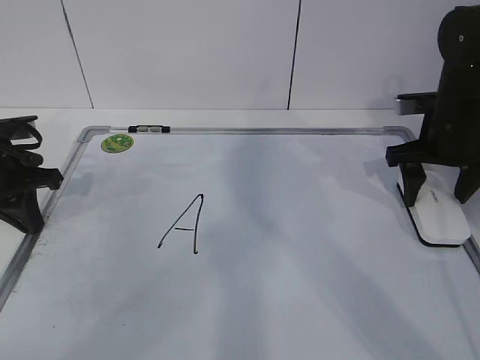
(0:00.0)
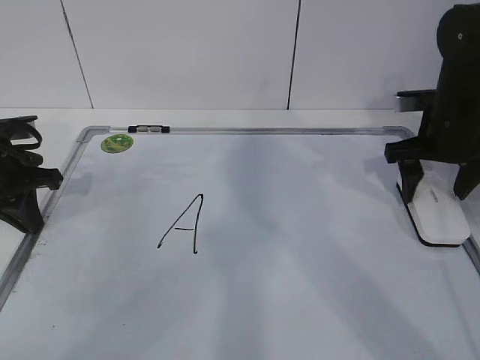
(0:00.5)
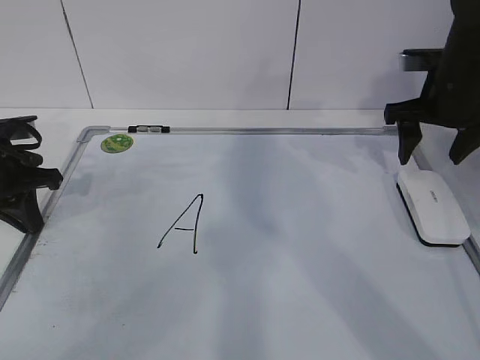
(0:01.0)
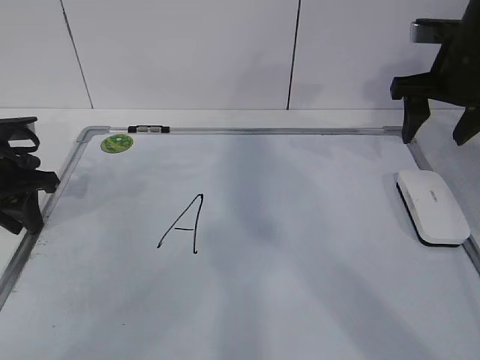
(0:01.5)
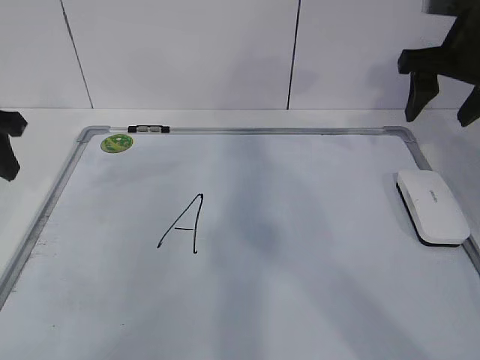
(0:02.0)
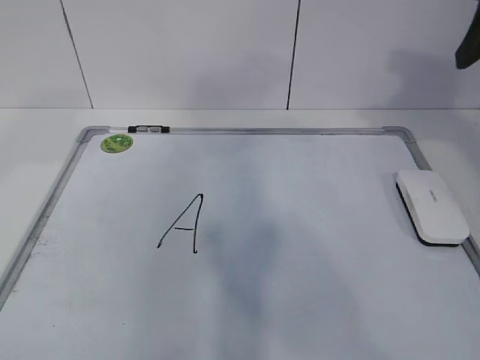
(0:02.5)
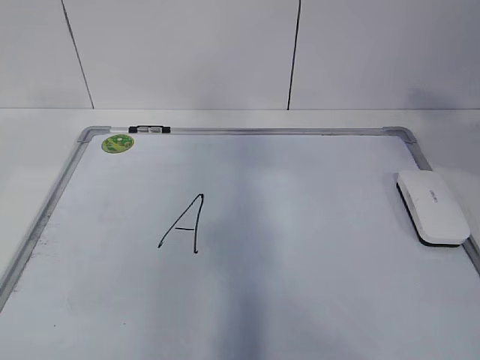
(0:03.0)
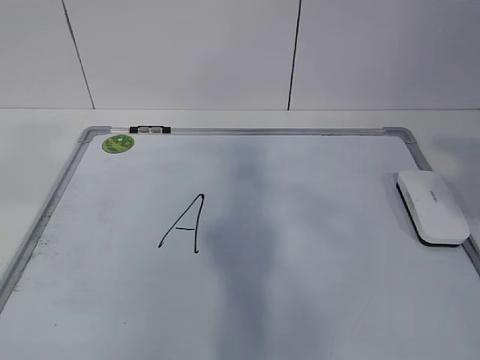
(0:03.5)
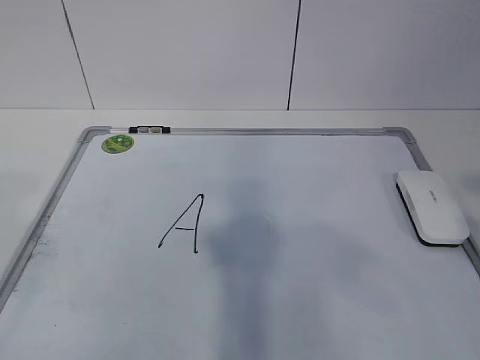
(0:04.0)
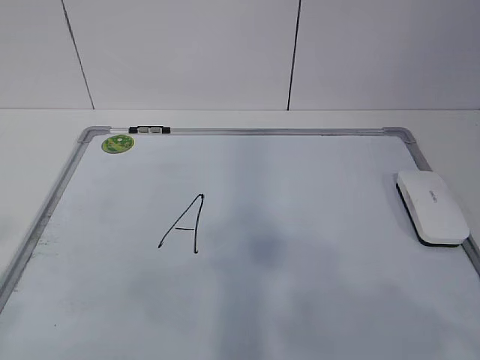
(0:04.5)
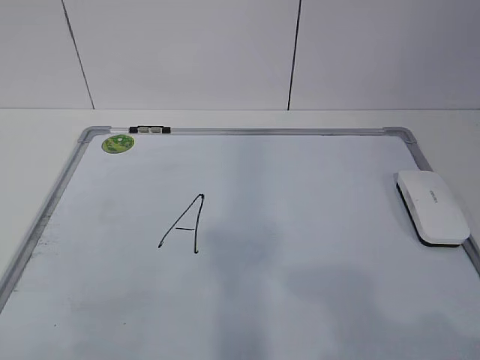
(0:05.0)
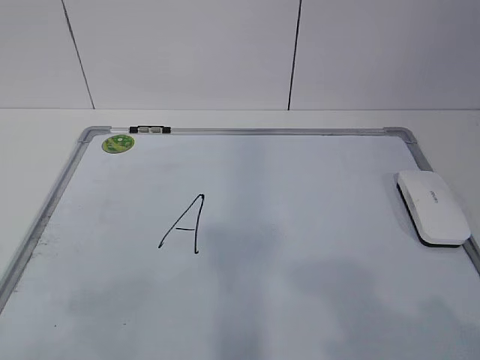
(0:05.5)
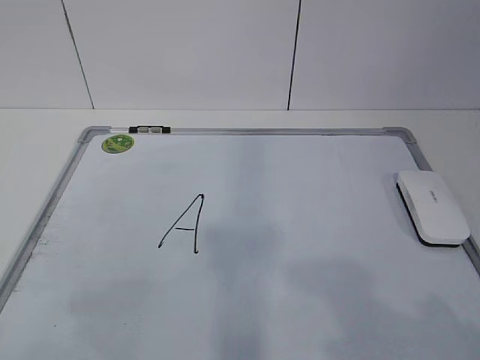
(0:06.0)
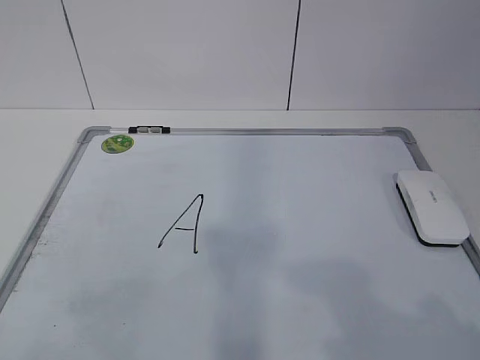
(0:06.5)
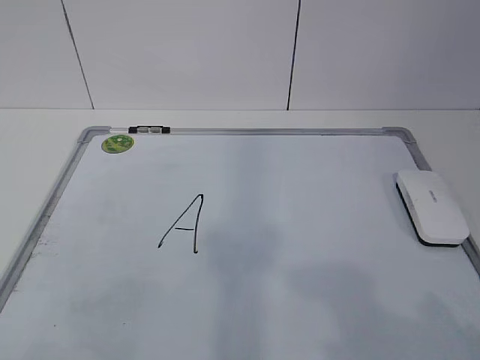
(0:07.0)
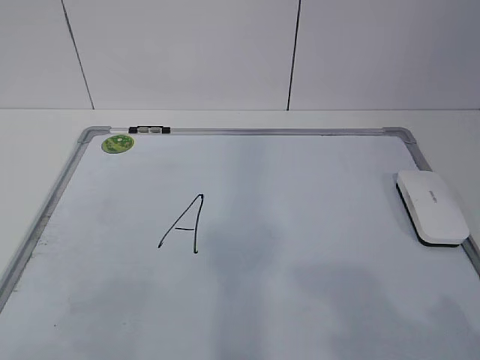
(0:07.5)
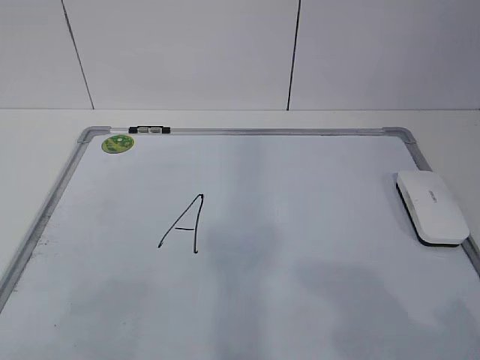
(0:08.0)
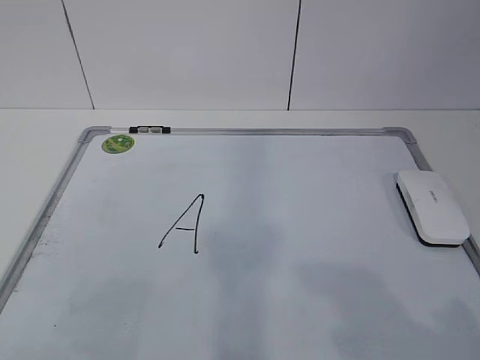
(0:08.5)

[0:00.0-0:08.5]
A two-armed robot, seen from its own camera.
Task of the whole recording: pick up the eraser on the blackboard and erase the letter "a".
0:00.0 to 0:02.0: The two grippers go approximately 10 cm upward. The left gripper opens up.
0:02.0 to 0:04.0: The left gripper travels backward and upward by roughly 30 cm. Meanwhile the right gripper heads backward, covering some 35 cm.
0:04.0 to 0:06.5: The two grippers go about 10 cm downward.

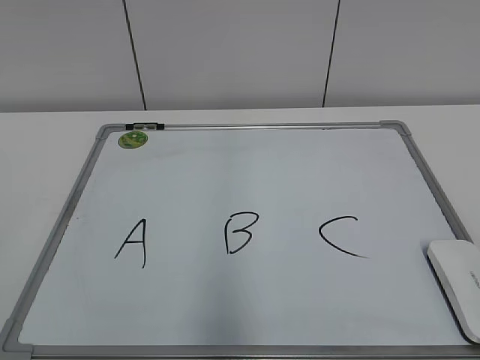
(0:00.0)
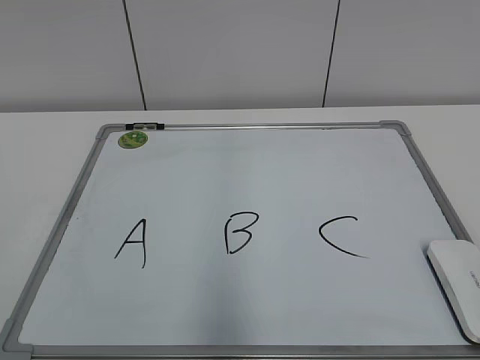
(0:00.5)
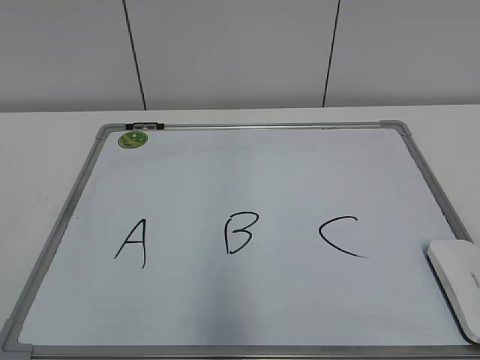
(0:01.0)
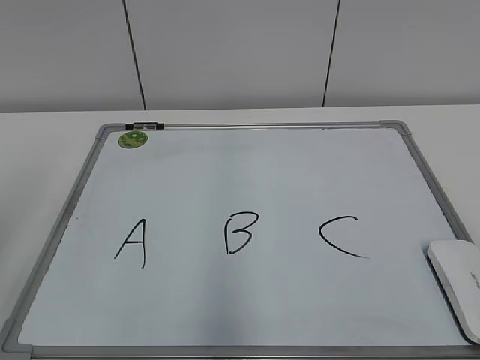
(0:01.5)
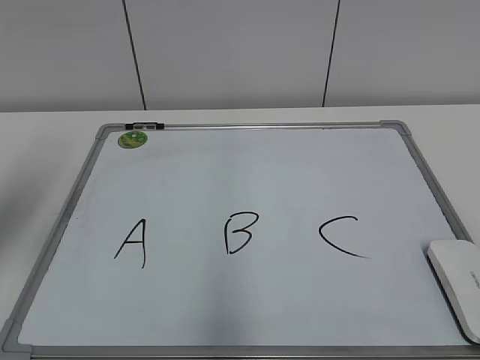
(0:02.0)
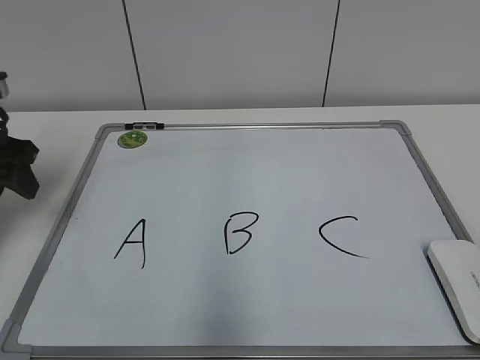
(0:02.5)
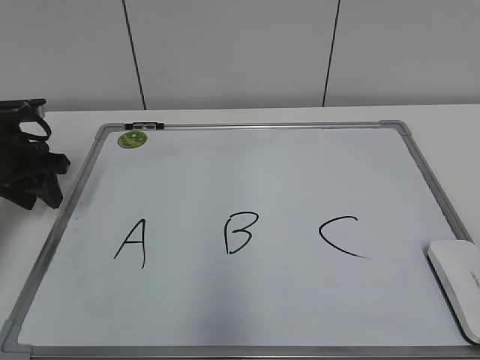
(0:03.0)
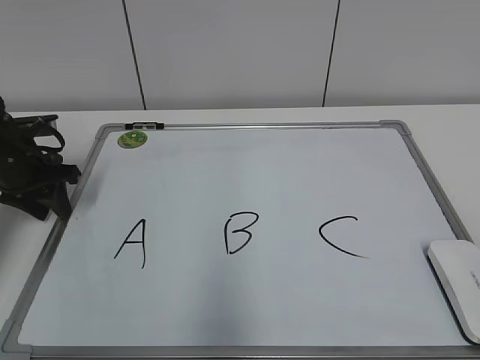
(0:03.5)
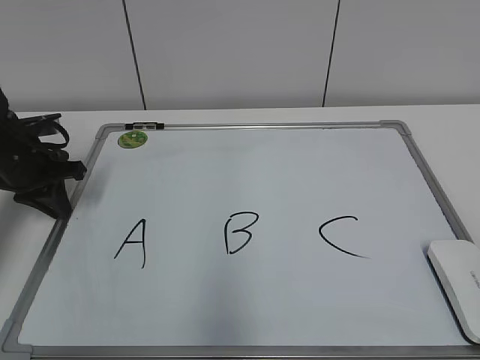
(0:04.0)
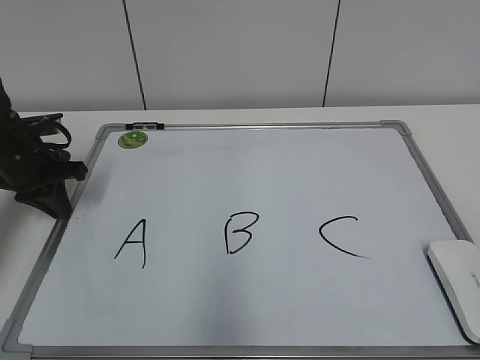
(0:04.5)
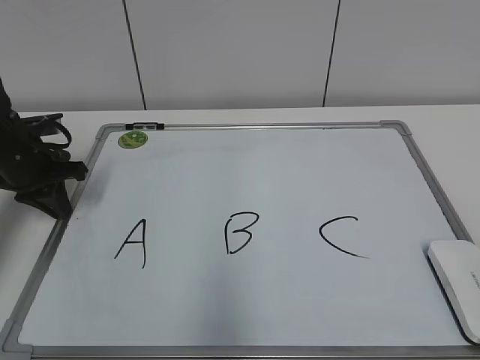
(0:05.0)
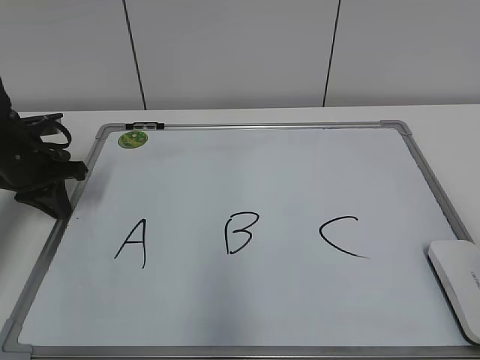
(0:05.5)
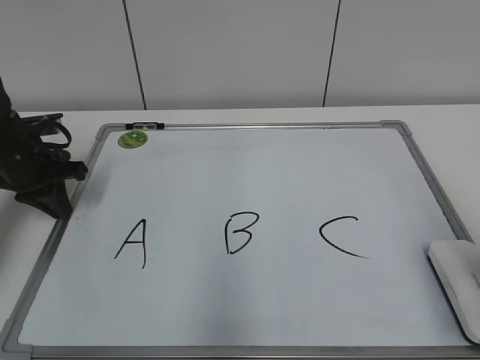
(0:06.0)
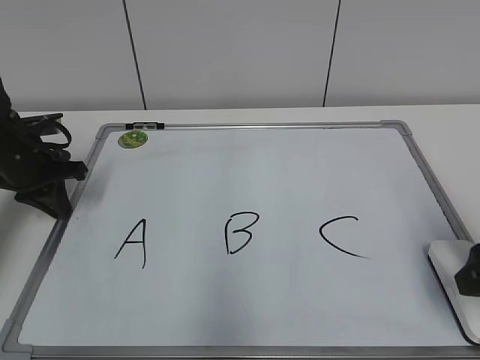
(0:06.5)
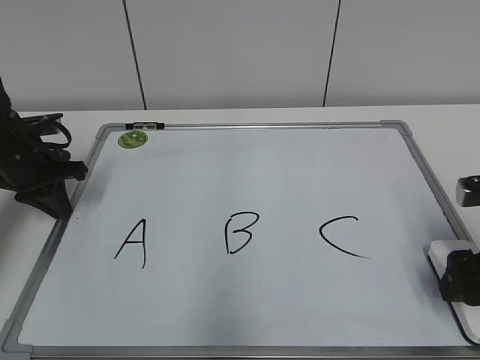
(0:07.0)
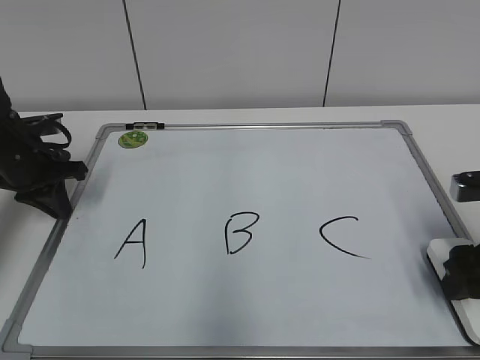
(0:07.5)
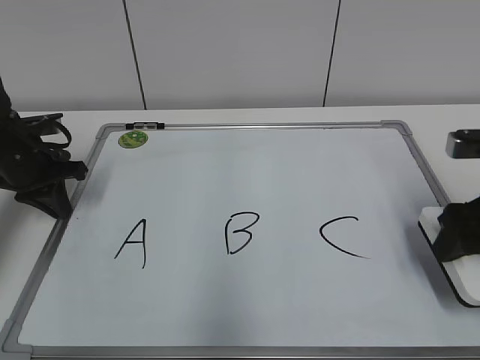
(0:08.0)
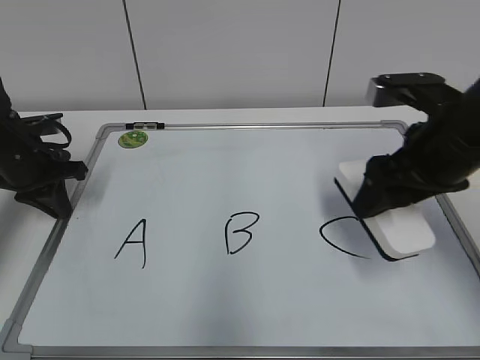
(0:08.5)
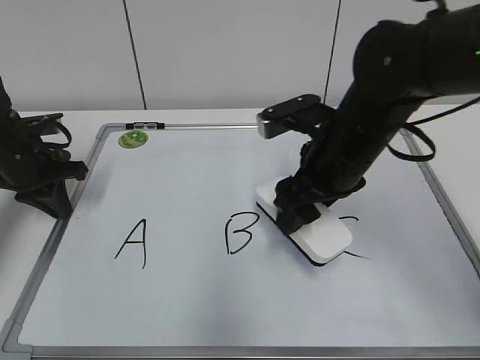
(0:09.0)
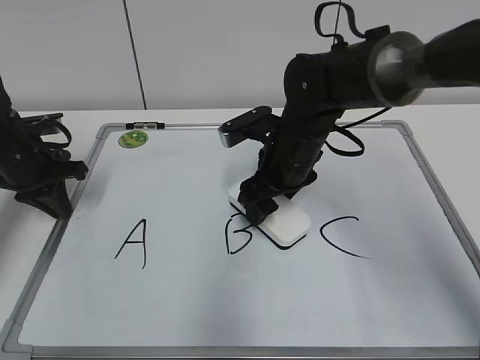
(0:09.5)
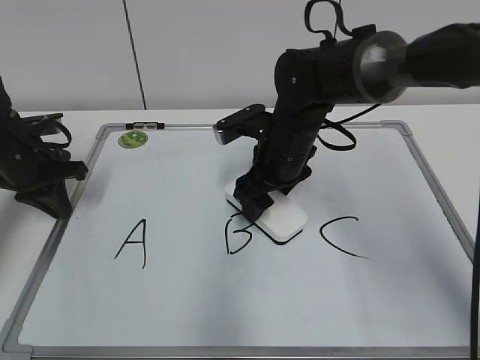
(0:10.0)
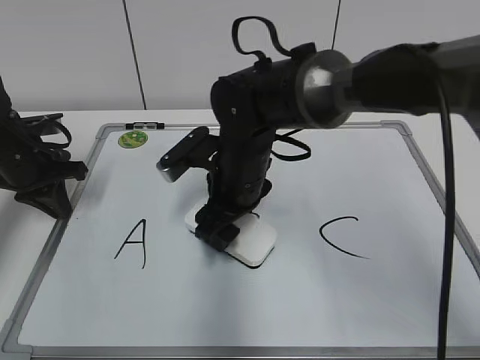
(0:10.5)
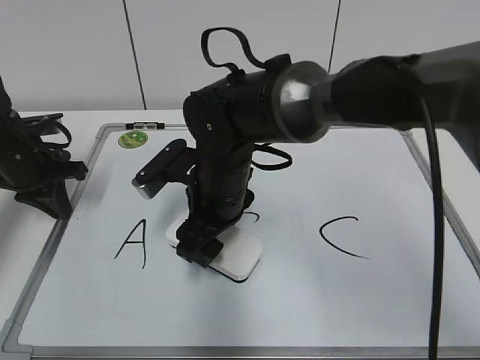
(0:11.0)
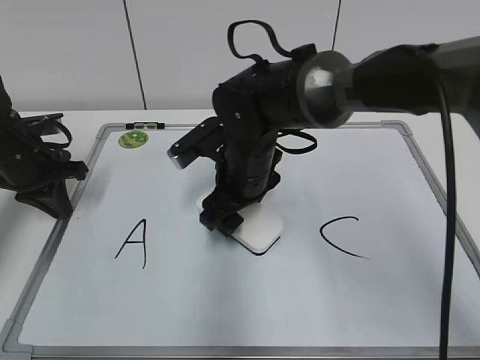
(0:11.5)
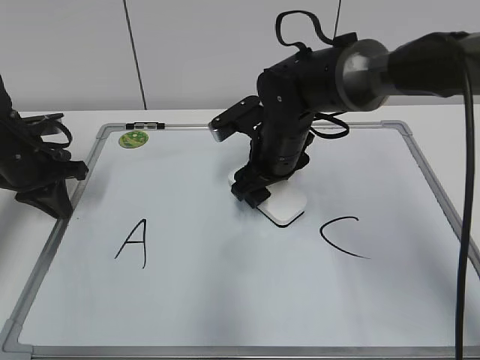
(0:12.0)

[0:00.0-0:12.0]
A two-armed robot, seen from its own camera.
Task of the whole recording: pick up the eraser on the blackboard and erase the letter "B".
Step, 0:00.0 to 0:03.5: Hold the drawing board steady with your left hand.
Step, 0:04.5 to 0:07.0: Grab the eraser with your right hand.
0:02.0 to 0:04.0: The left gripper travels downward and forward by approximately 25 cm, and closes.
0:04.0 to 0:06.0: The right gripper shifts approximately 15 cm forward, and opens up.
0:06.0 to 0:08.0: The right gripper moves forward and downward, about 15 cm, and closes up.
0:08.0 to 0:10.0: The right gripper shifts about 25 cm to the left and forward.
0:10.0 to 0:12.0: The right gripper reaches about 10 cm to the left, then returns.

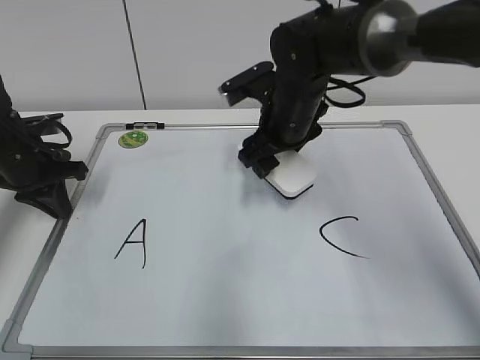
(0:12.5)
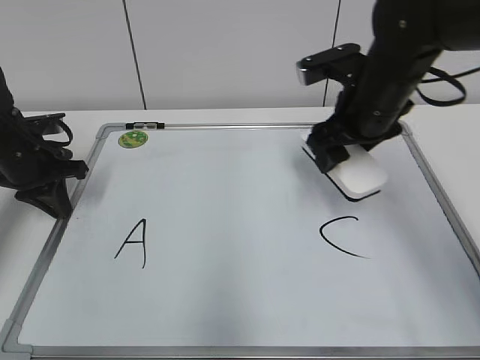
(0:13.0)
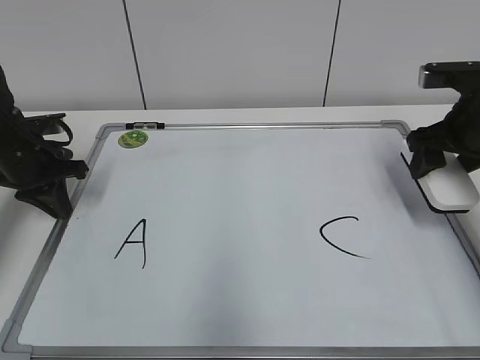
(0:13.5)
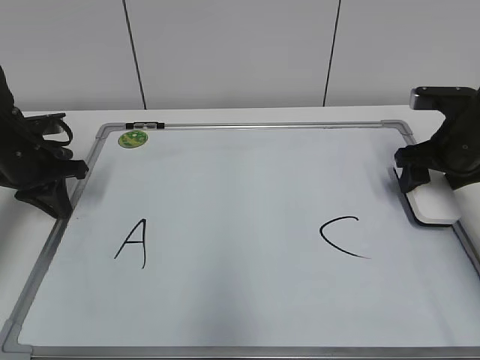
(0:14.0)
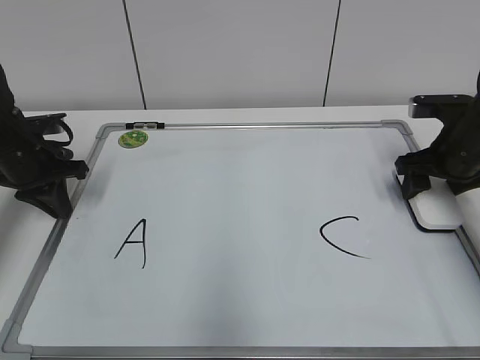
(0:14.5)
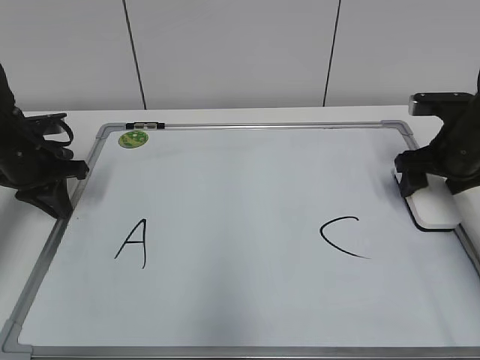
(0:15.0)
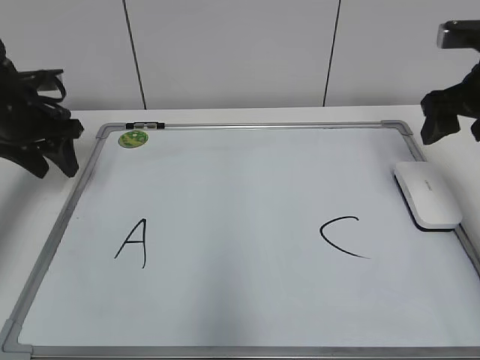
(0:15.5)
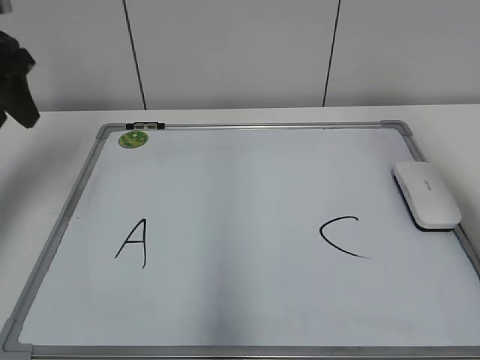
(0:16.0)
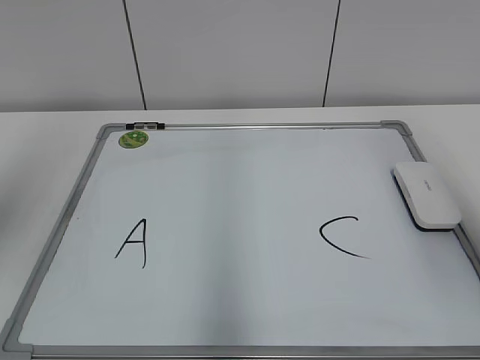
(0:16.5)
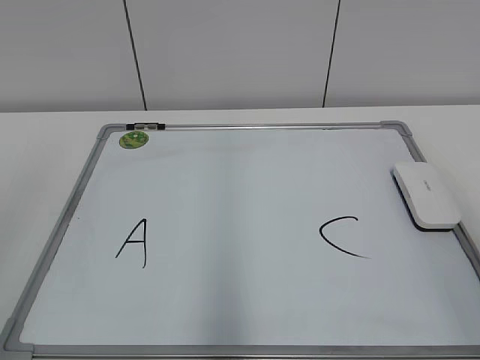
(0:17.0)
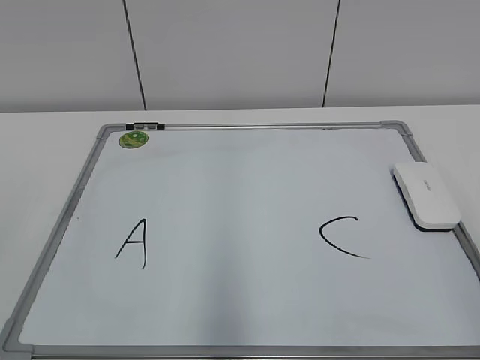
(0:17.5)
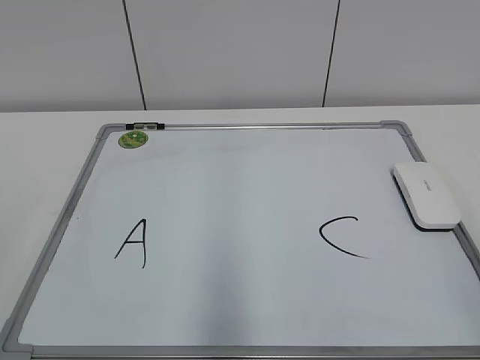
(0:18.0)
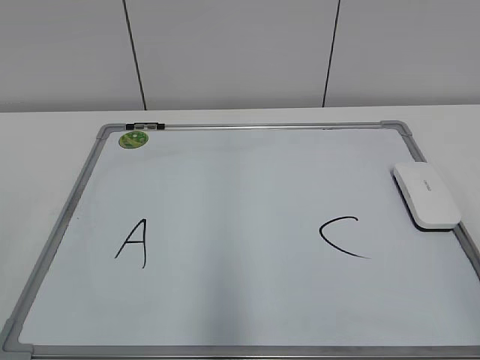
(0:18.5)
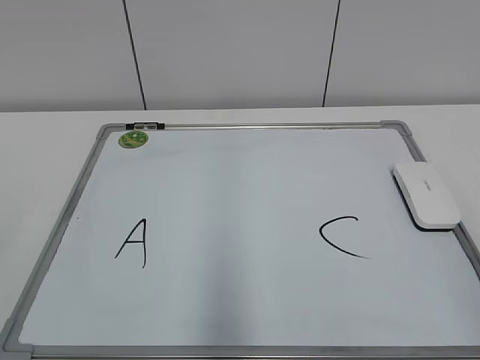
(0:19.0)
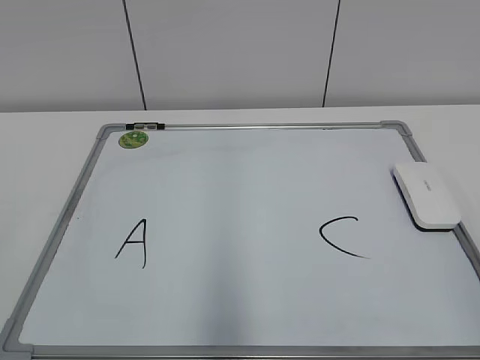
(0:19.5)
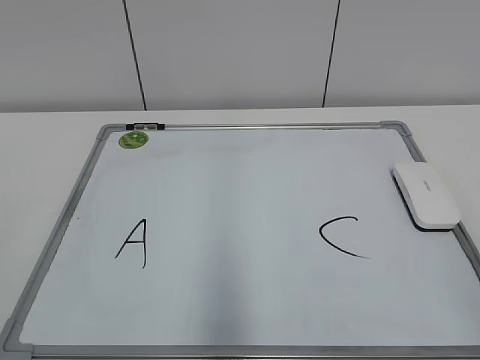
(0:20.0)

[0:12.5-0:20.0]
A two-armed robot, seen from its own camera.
Task of the whole recording: pick up the eraser on the blackboard and erase the letter "B".
Step, 0:12.5 to 0:14.5: Put down the eraser with your right hand.
0:12.5 to 0:14.5: The right gripper shifts roughly 20 cm to the right.
0:14.5 to 0:16.5: The grippers both shift upward and backward by some 35 cm. The right gripper opens up. The left gripper opens.
0:16.5 to 0:18.0: The grippers both shift backward and downward by approximately 20 cm.
